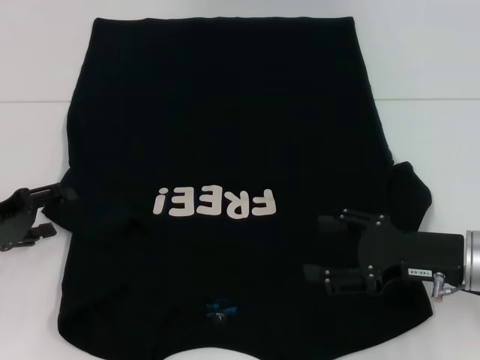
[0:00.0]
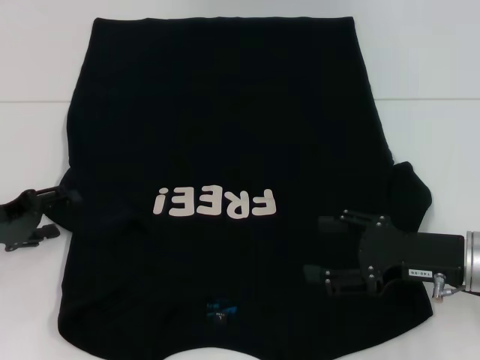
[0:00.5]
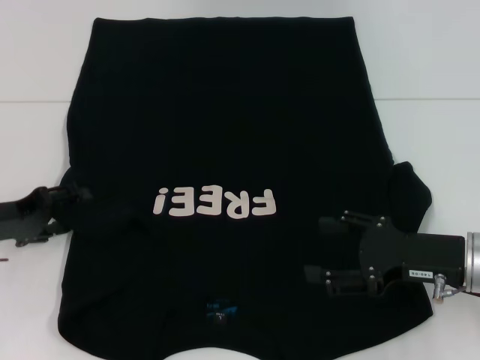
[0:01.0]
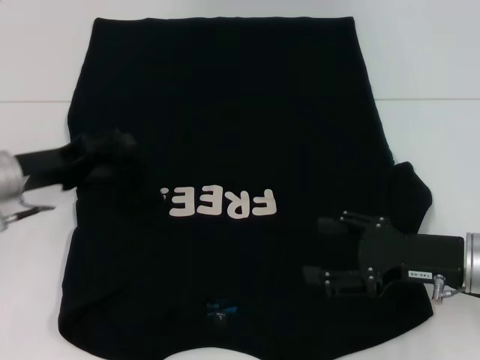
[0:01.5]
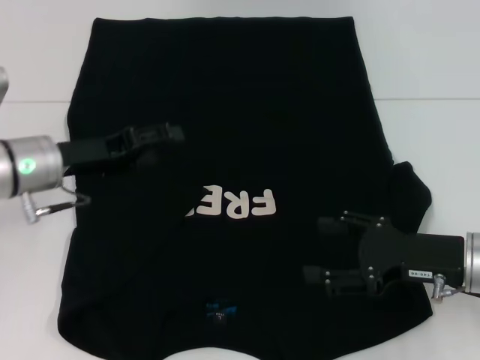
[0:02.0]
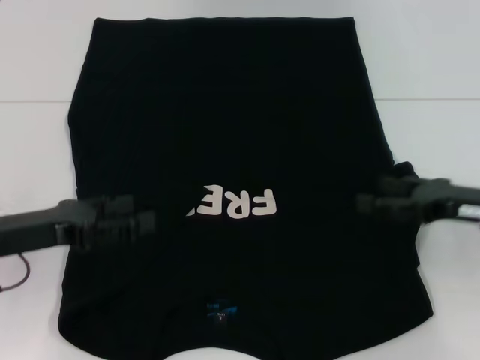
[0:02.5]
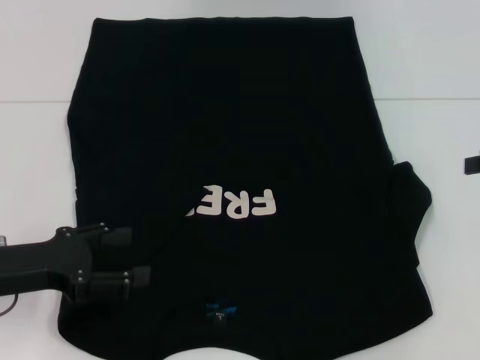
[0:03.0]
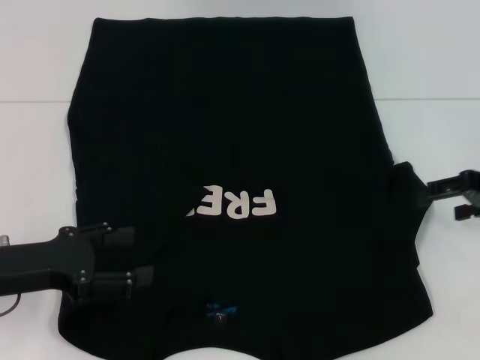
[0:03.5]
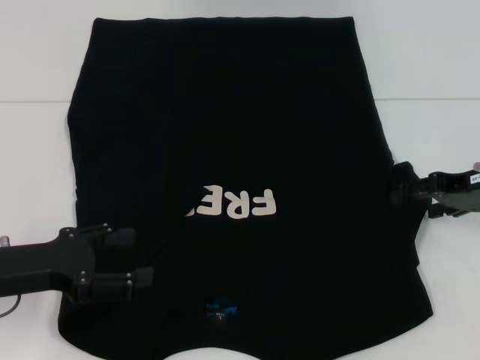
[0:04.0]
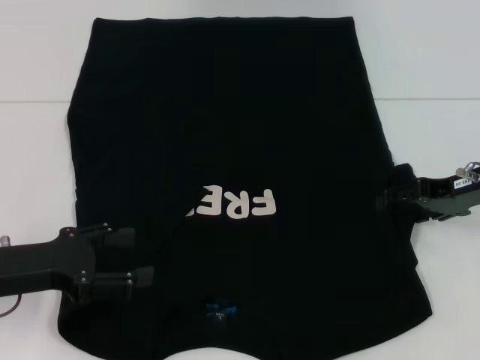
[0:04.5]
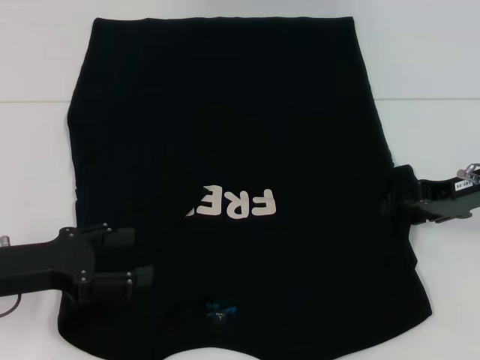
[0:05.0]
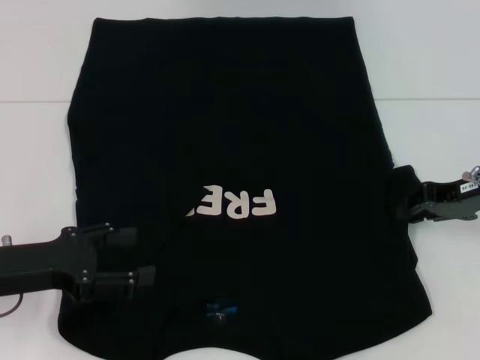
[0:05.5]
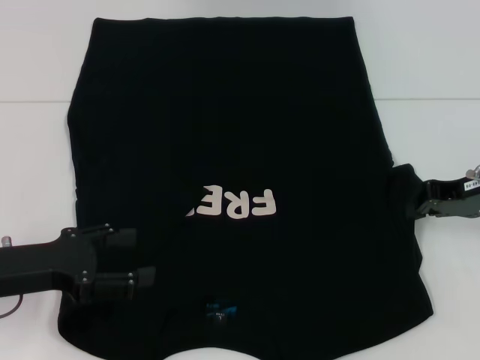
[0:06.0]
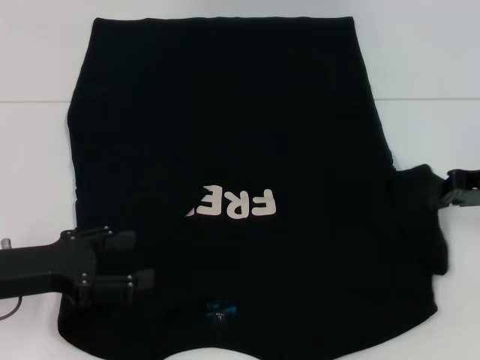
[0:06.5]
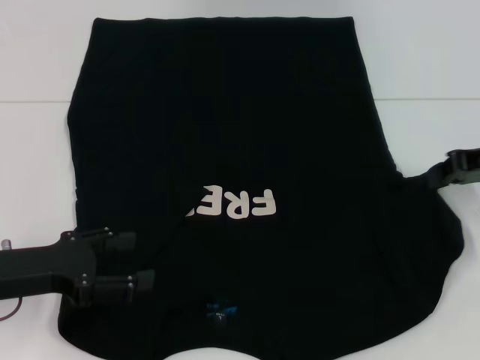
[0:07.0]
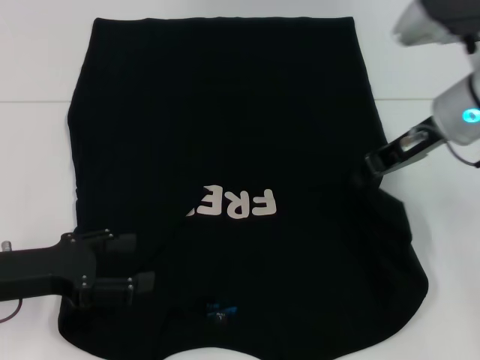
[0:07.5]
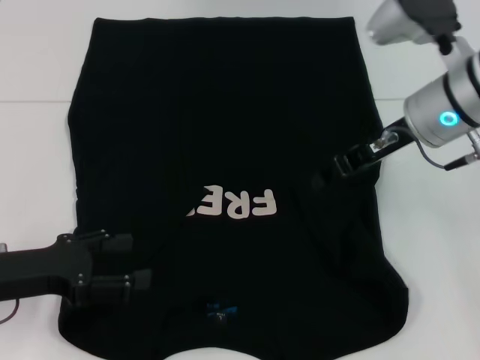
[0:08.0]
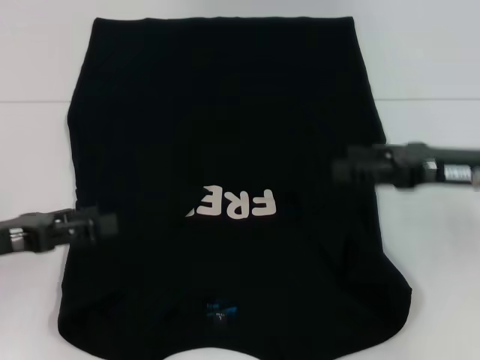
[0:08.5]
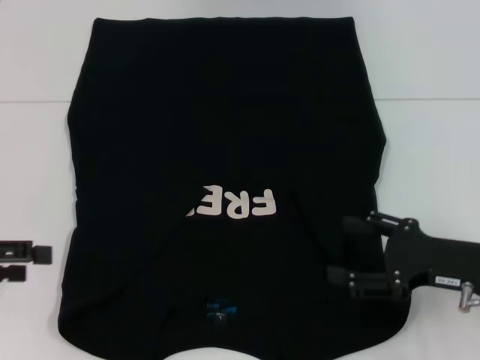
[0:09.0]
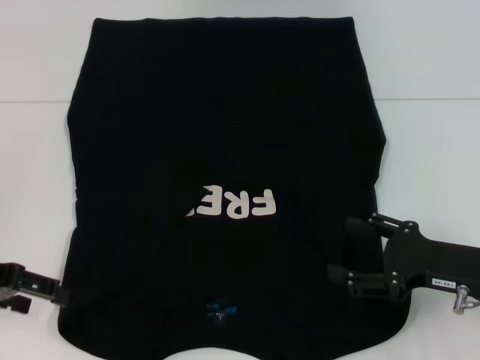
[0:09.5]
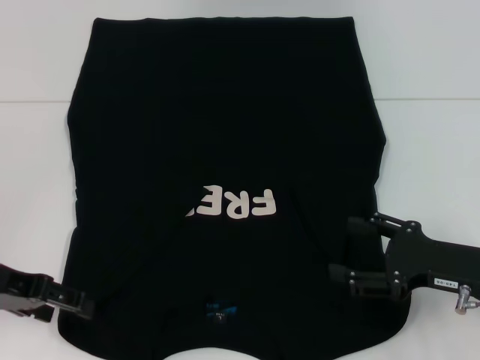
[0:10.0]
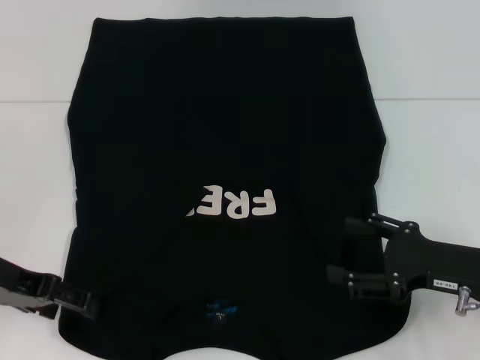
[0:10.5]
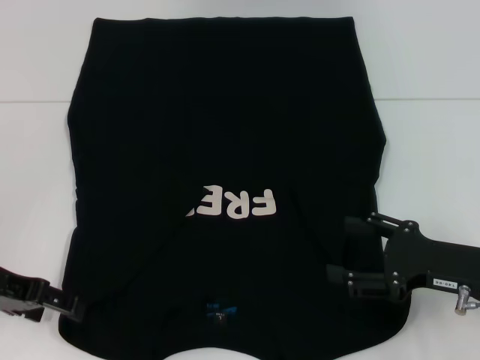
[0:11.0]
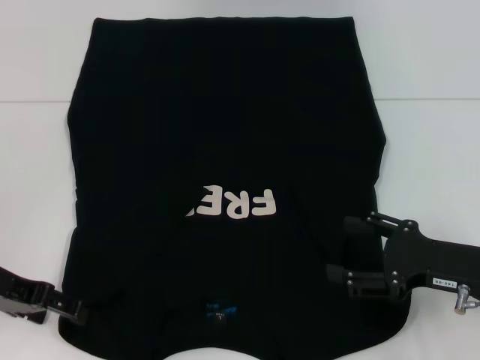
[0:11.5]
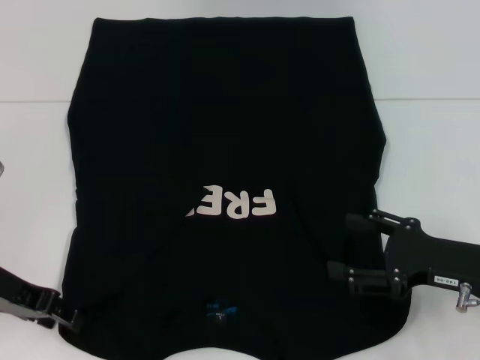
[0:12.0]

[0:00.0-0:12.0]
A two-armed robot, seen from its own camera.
Step, 0:00.0 to 0:02.5: Fold the bottom left sleeve with your left hand.
Step, 0:03.0 to 0:08.5: Fold the bottom right sleeve with your right hand.
0:00.0 to 0:02.0: The left gripper heads to the right and forward, covering some 10 cm.
0:02.0 to 0:04.0: The left gripper shifts approximately 10 cm backward. The right gripper moves forward, upward and to the right, roughly 10 cm.
0:04.0 to 0:06.0: The right gripper closes up.
0:06.0 to 0:08.0: The right gripper moves to the left and upward, about 15 cm.
0:08.0 to 0:10.0: The right gripper travels backward, downward and to the right by roughly 20 cm, and opens up, while the left gripper goes to the left and returns, some 10 cm each way.
0:10.0 to 0:12.0: There are only small adjustments of the grippers.

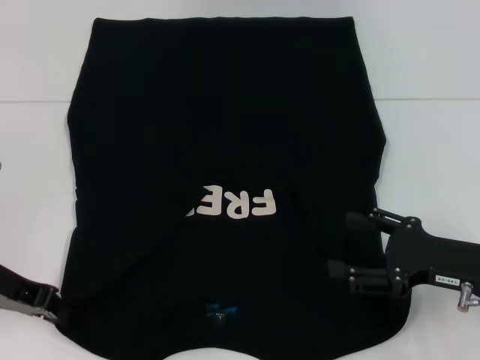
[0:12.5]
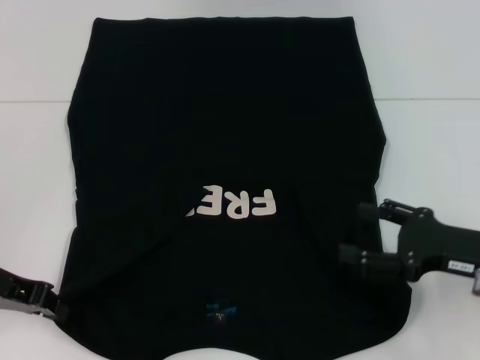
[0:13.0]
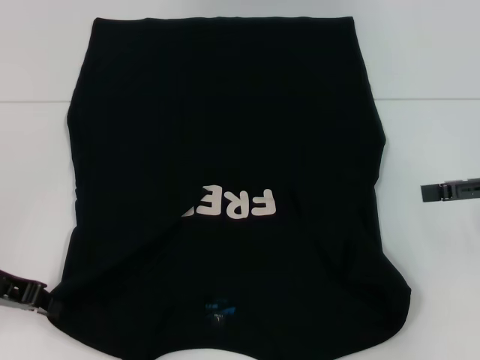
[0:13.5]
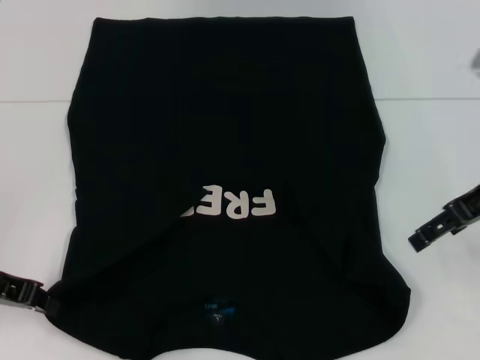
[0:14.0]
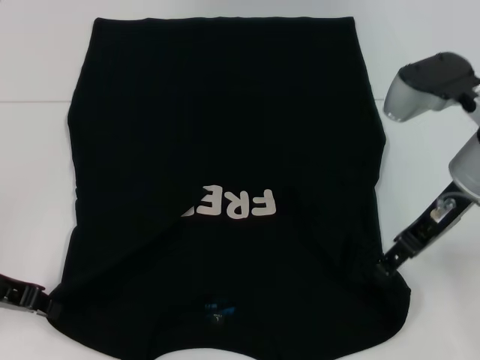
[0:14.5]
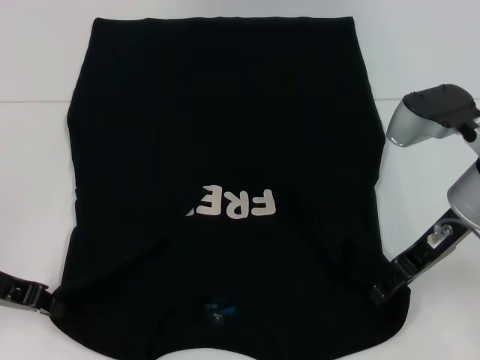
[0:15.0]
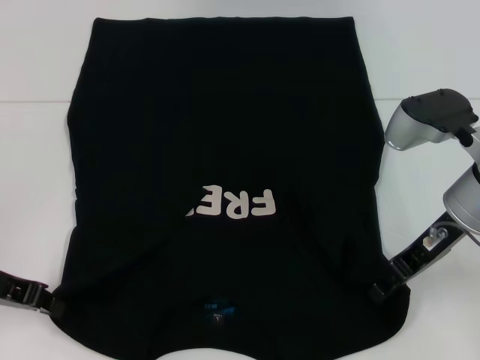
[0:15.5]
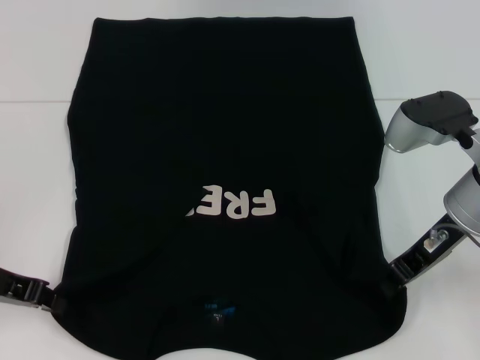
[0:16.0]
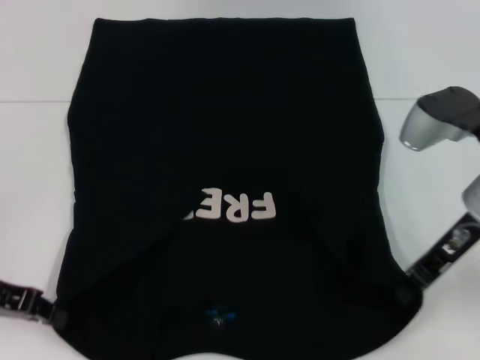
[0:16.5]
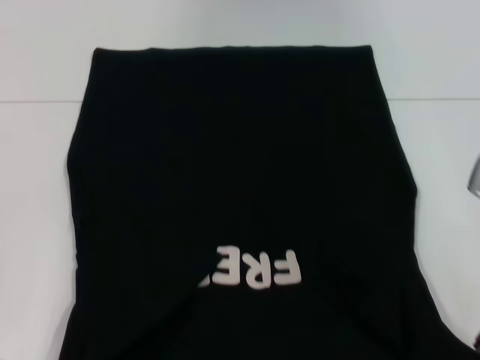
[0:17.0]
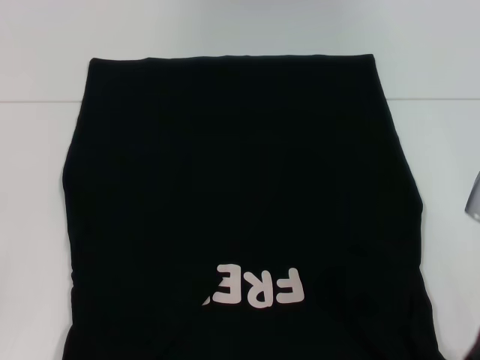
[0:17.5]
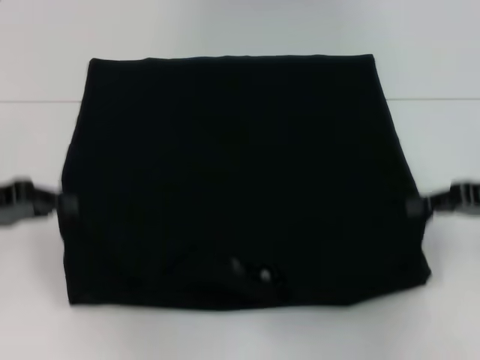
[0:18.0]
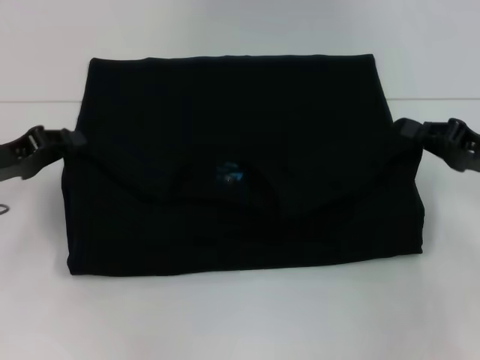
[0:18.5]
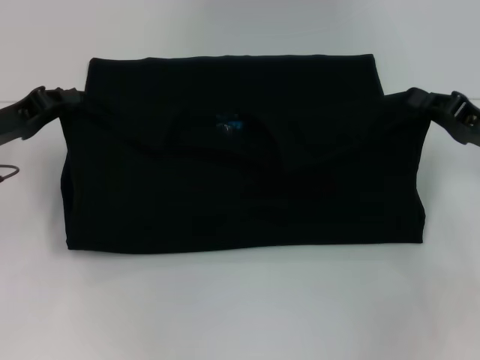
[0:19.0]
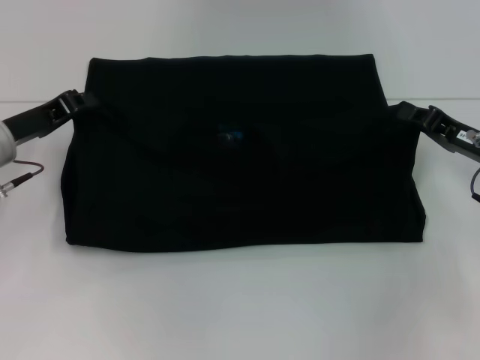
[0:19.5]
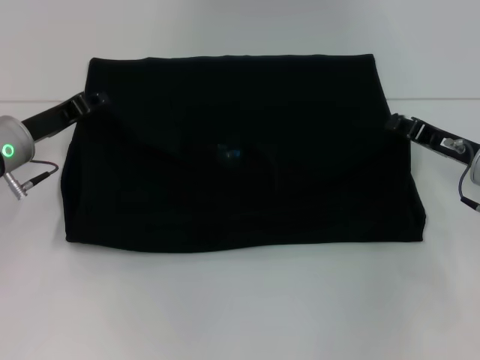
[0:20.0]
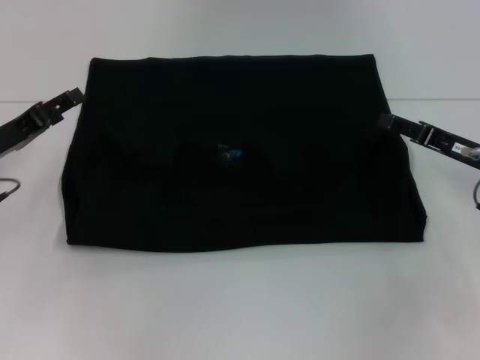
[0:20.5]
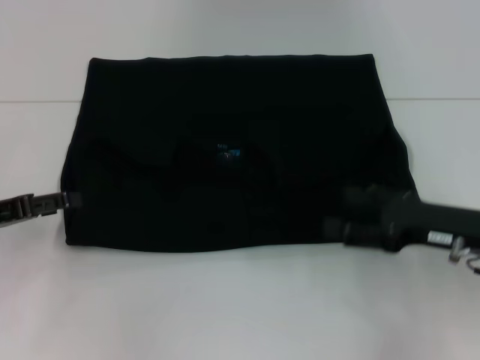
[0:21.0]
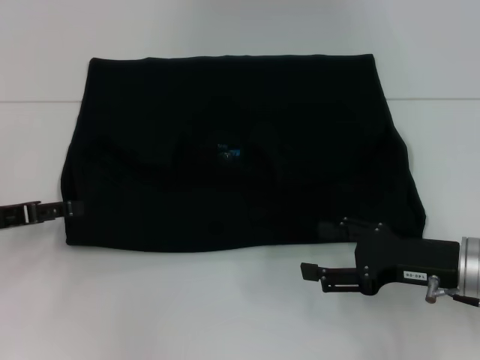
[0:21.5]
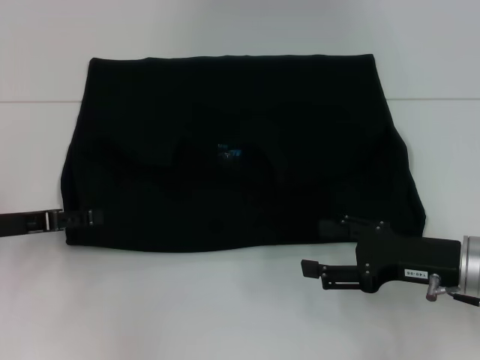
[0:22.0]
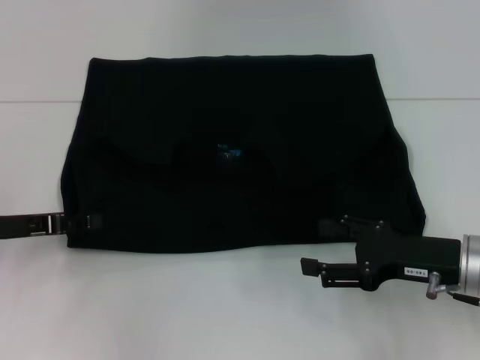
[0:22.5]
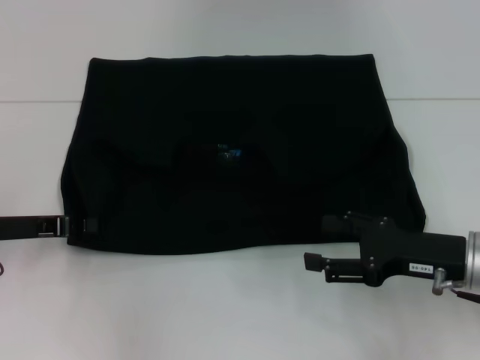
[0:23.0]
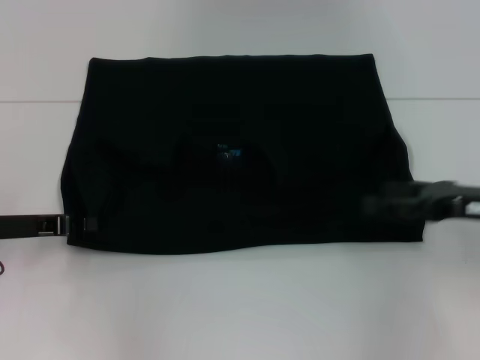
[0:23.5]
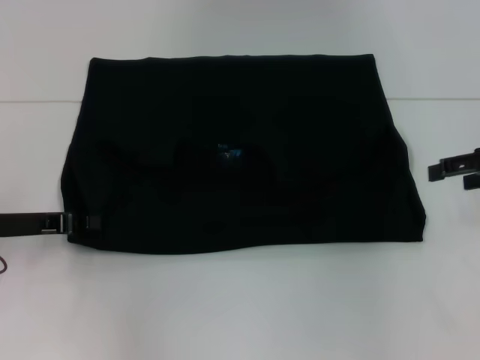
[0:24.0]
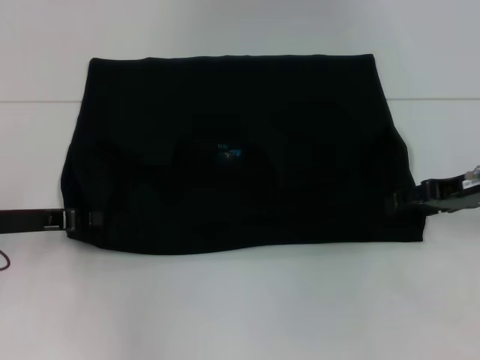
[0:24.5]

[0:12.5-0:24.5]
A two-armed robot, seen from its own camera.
Step, 0:12.5 to 0:16.5: Grab the bottom right corner with your right hand.
Step, 0:17.0 to 0:20.5: Fold the clothes with your left hand.
Step, 0:17.0 to 0:20.5: Fold the clothes with your right hand.
0:12.5 to 0:14.5: The right gripper is displaced upward, forward and to the left by about 15 cm.
0:14.5 to 0:16.5: The right gripper closes.
0:16.5 to 0:18.5: The right gripper heads to the right and downward, covering approximately 10 cm.
0:18.5 to 0:20.5: The right gripper opens up. The left gripper opens up.
0:20.5 to 0:22.5: The right gripper goes about 5 cm backward, and opens.
0:22.5 to 0:24.5: The left gripper closes up. The right gripper moves forward and upward, about 10 cm.

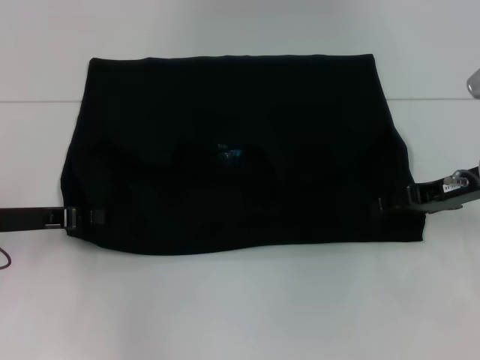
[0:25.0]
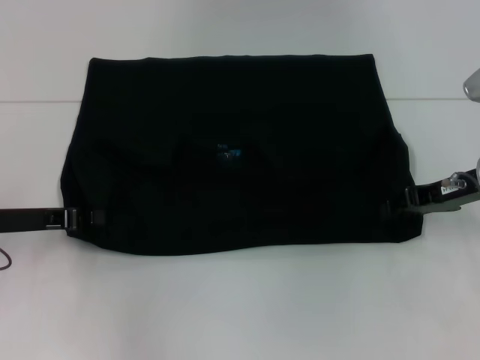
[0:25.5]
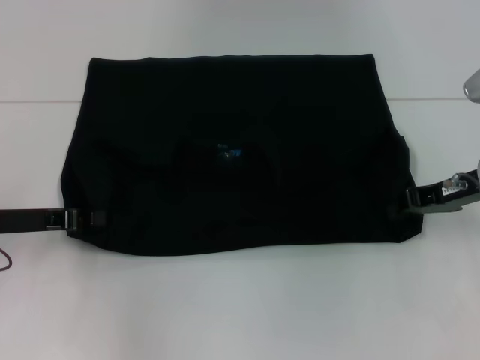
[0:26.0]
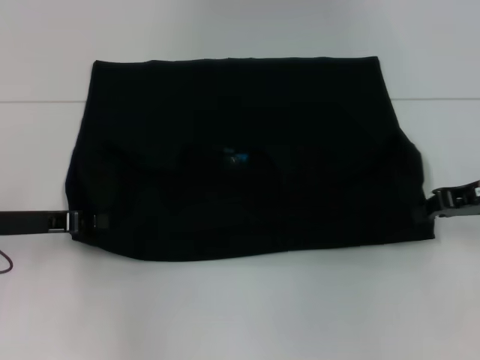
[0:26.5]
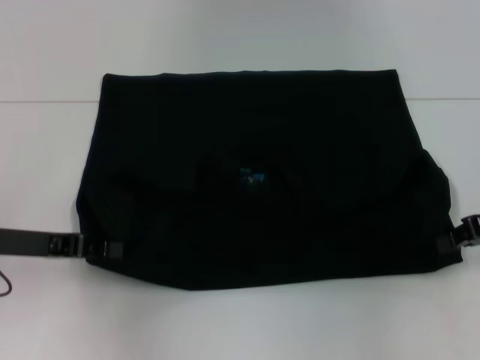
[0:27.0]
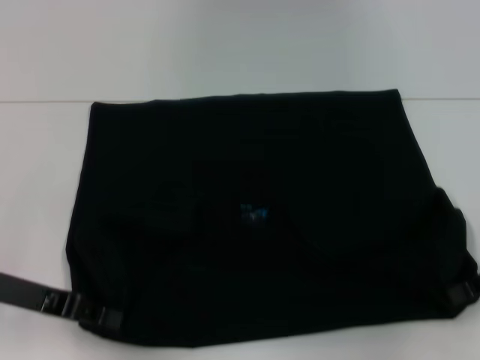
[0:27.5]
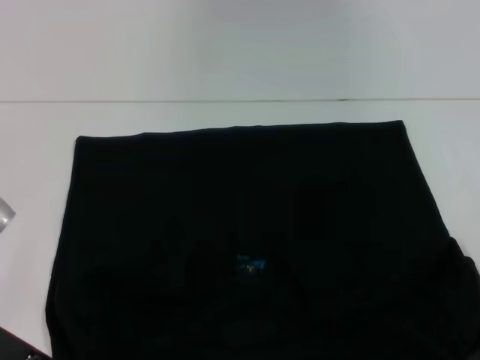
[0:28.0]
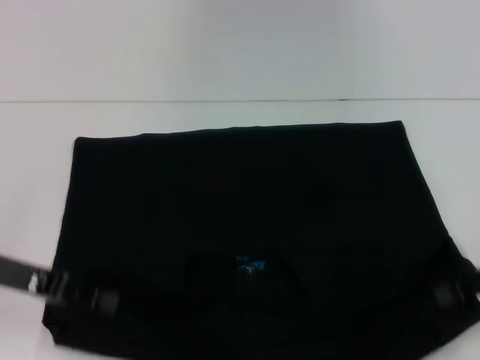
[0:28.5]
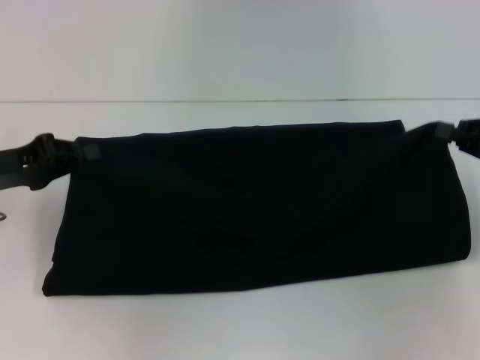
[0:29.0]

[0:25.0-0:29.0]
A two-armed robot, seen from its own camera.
Step, 0:25.0 to 0:27.5: Pull the clothes with your left hand.
Step, 0:25.0 to 0:27.5: Pull the clothes with your right hand.
0:25.0 to 0:27.0: The right gripper shifts about 5 cm to the right, and closes its fingers.
